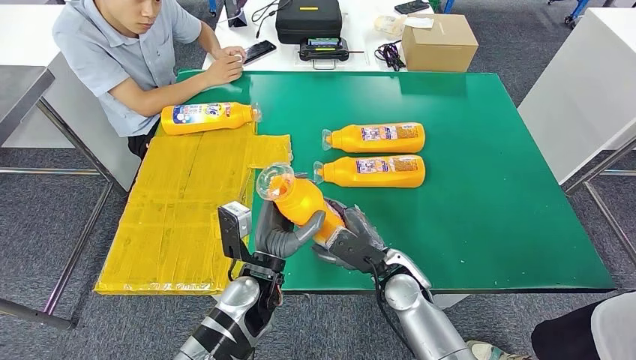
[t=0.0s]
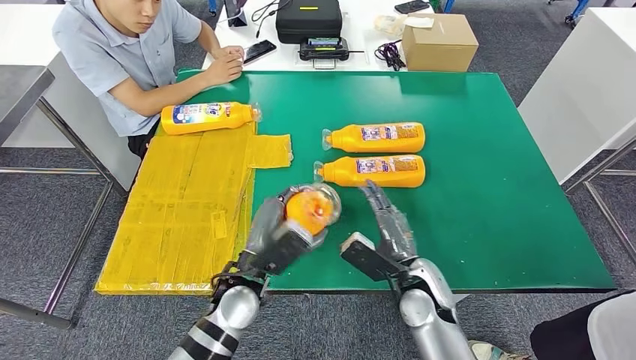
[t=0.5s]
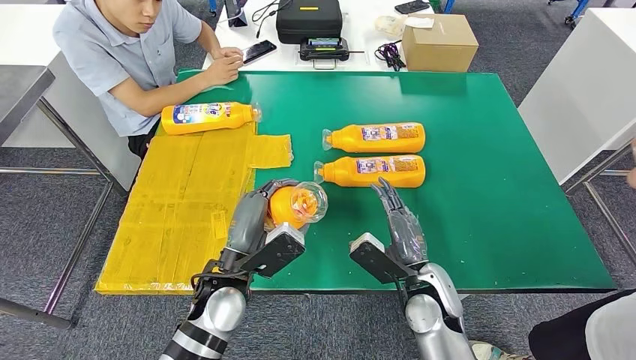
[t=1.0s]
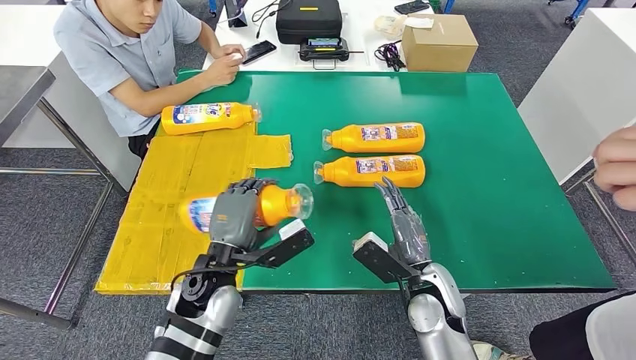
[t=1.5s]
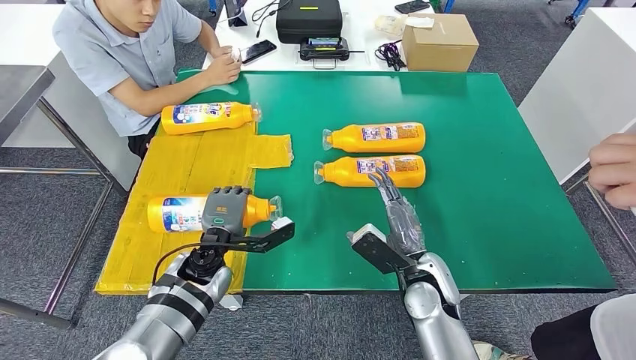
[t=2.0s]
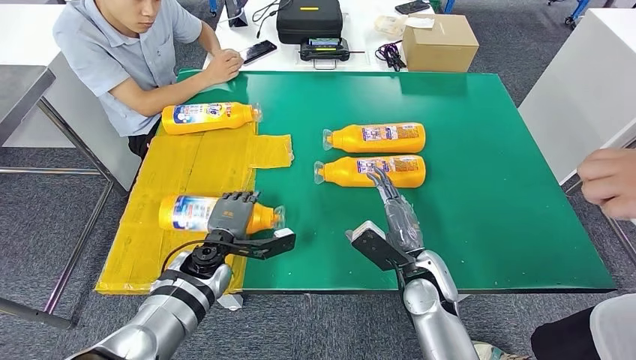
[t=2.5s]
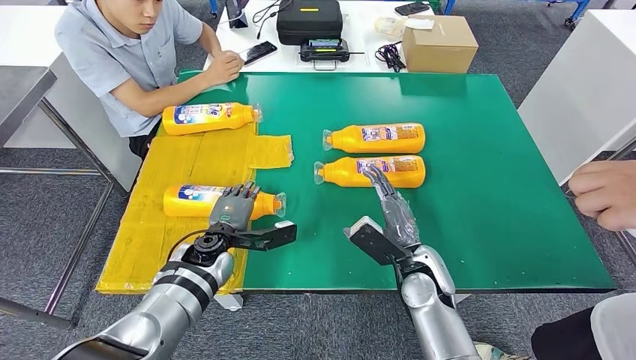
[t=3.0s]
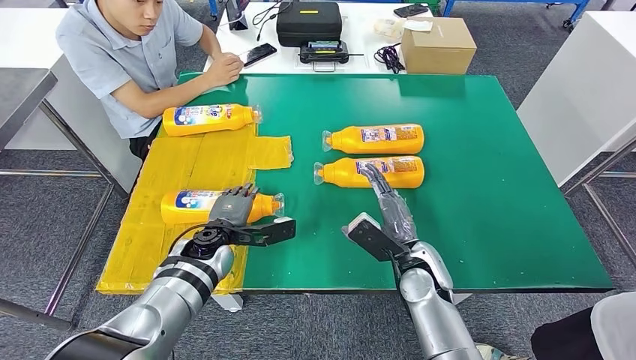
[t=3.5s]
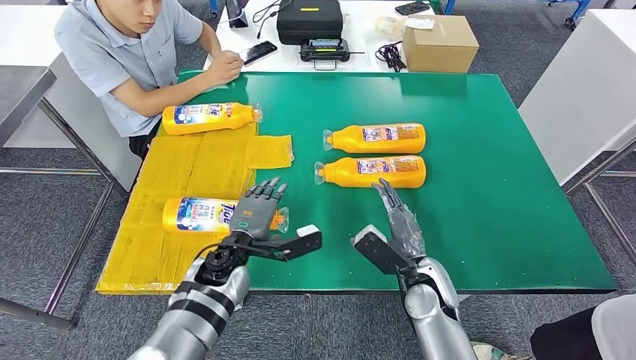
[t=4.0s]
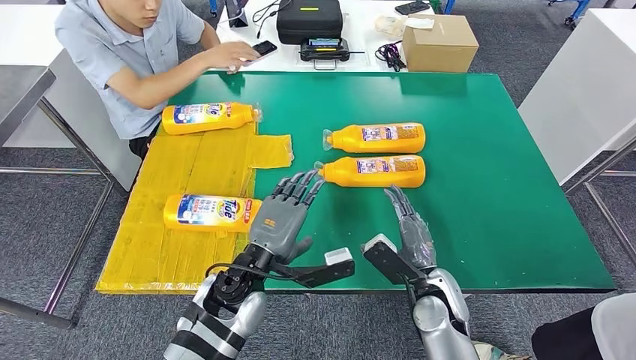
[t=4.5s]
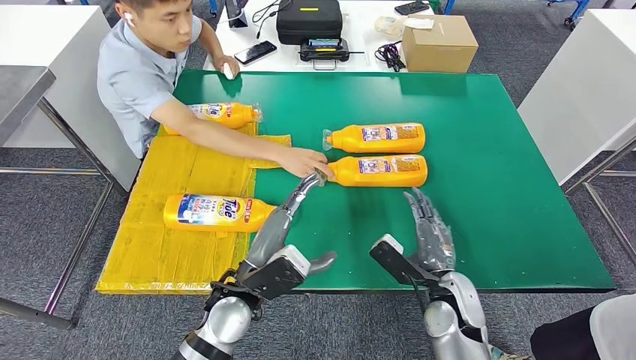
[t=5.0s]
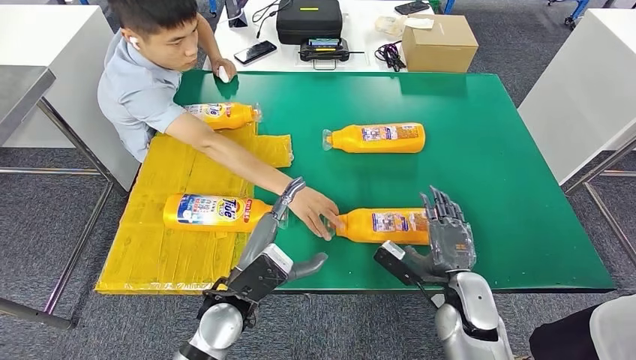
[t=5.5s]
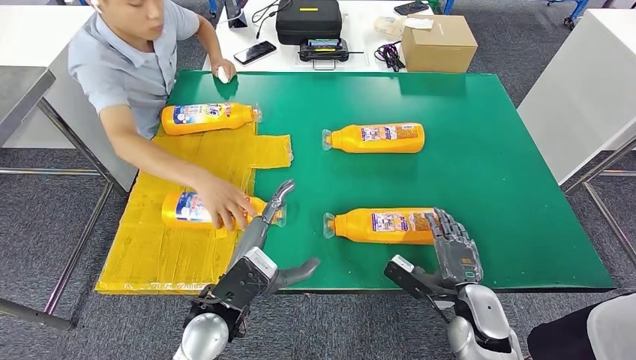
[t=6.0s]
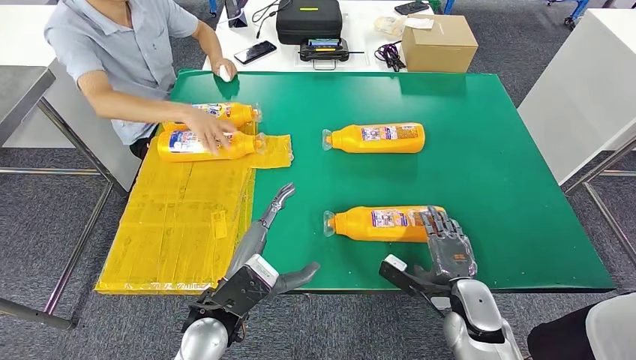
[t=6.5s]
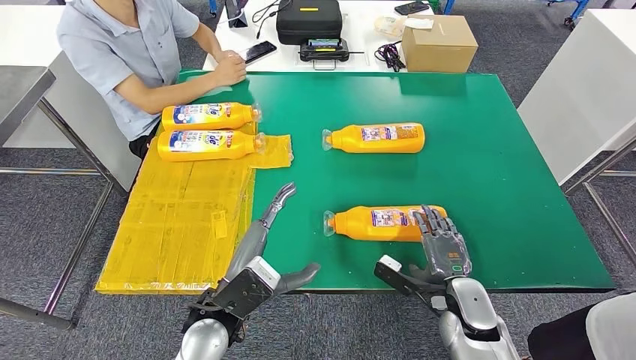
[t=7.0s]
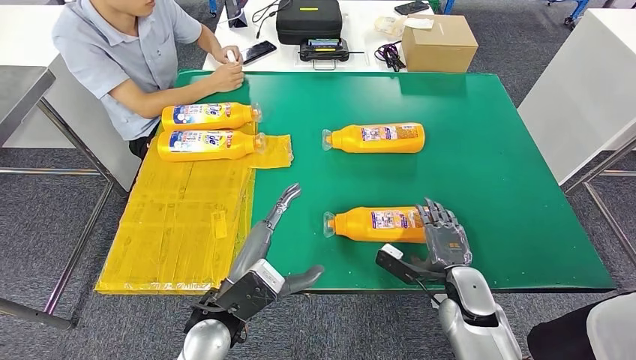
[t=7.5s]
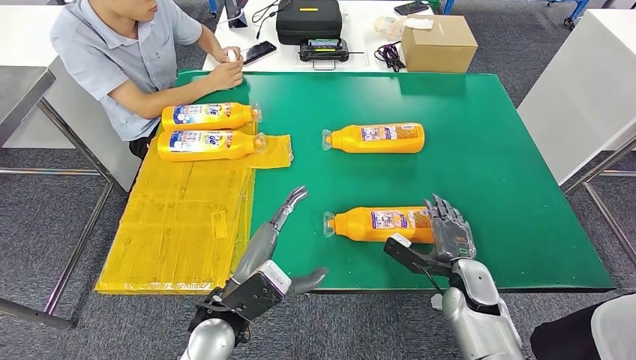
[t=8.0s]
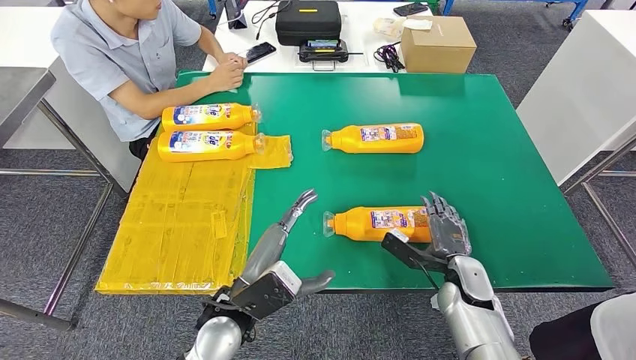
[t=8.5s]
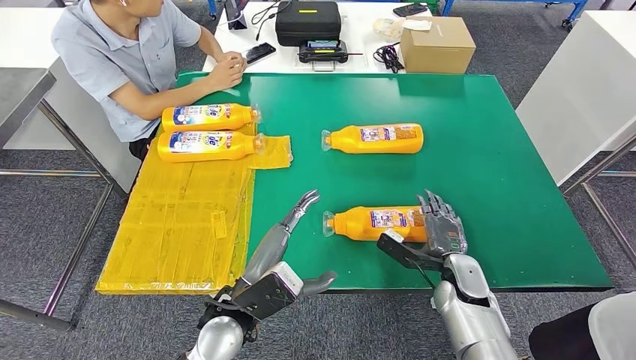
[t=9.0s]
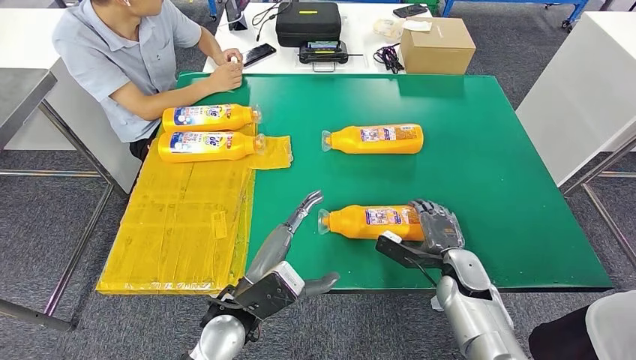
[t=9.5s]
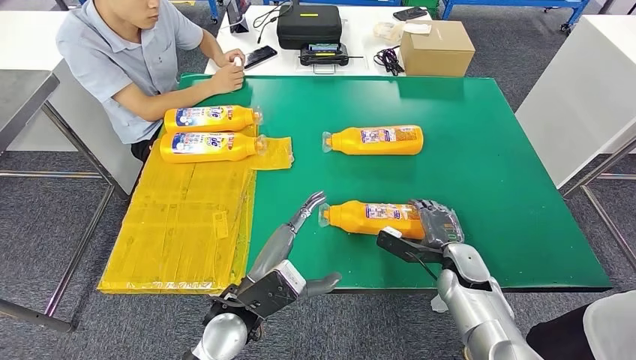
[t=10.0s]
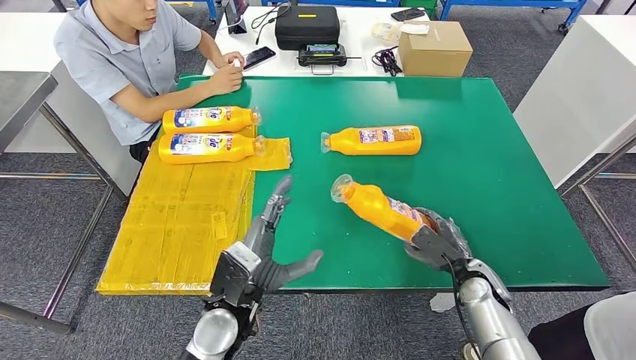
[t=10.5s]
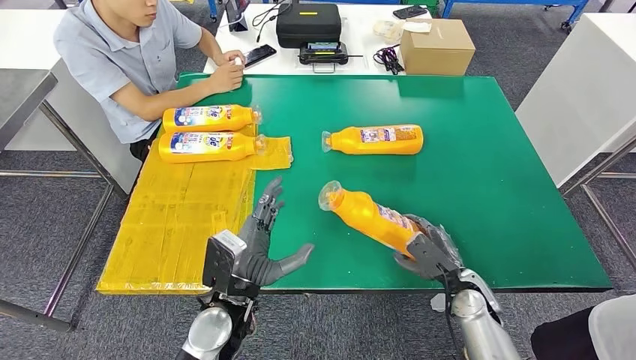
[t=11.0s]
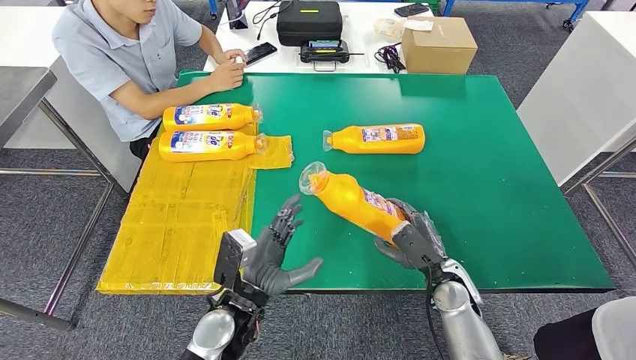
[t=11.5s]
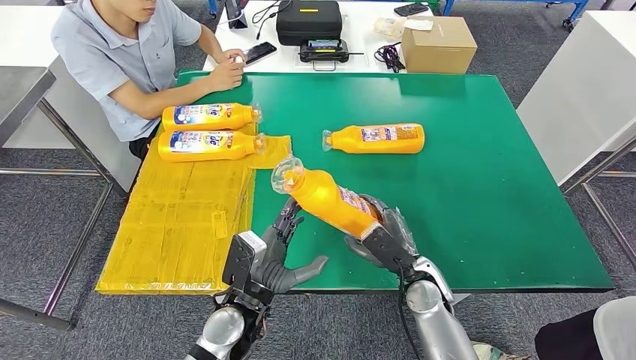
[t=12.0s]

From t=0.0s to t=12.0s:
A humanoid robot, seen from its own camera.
Step, from t=0.0s to t=4.0s: Flip the fast-moving consumer goods bottle to the front side.
From t=0.0s to t=2.0s: The left hand shifts some 10 cm to the left and forward.
From t=6.0s to t=8.0s: The right hand goes roughly 5 cm forward.
From t=8.0s to t=10.0s: There are only small adjustments of the hands.

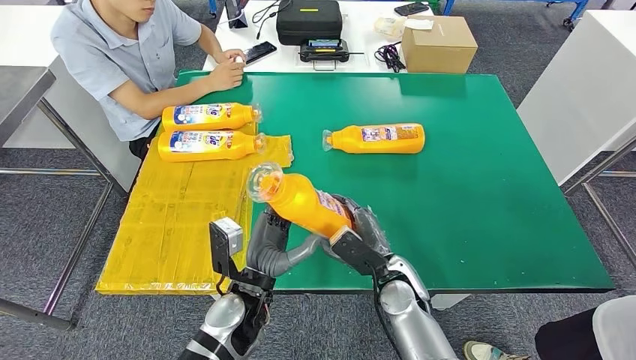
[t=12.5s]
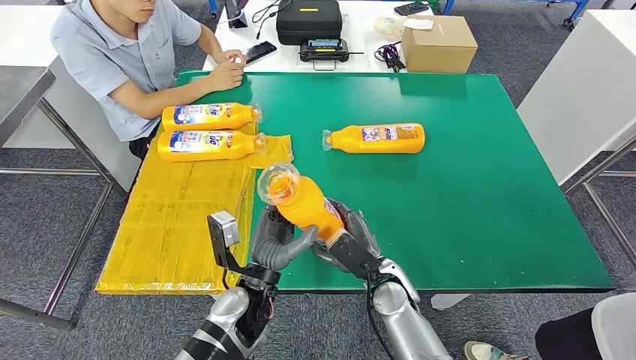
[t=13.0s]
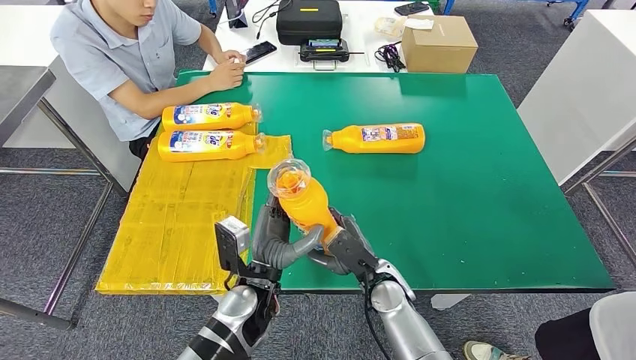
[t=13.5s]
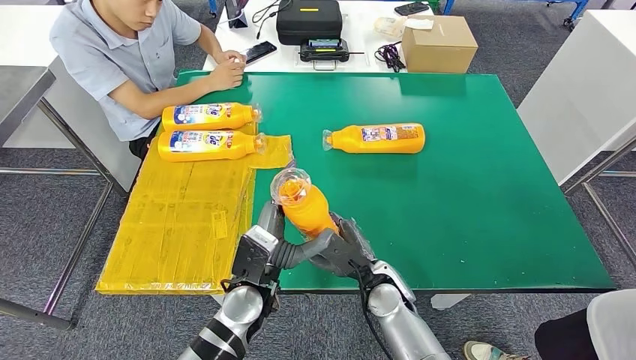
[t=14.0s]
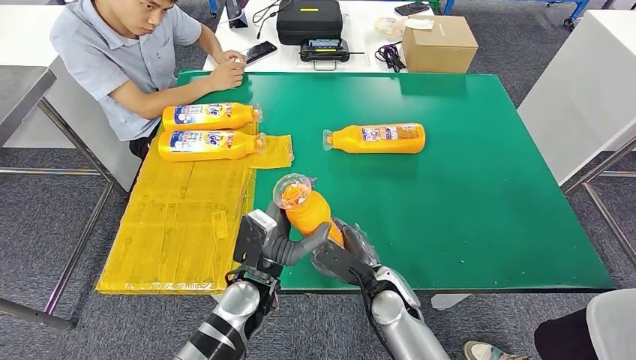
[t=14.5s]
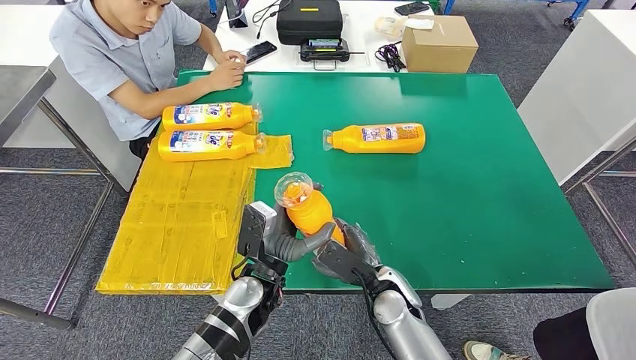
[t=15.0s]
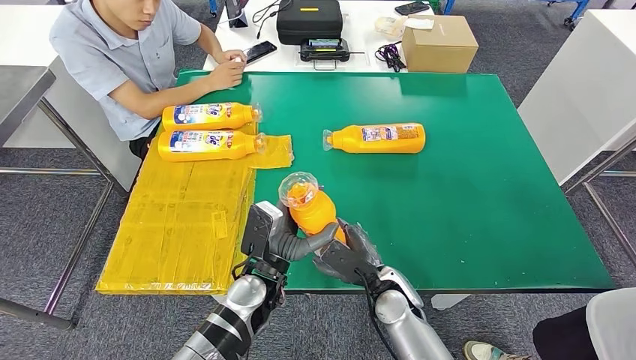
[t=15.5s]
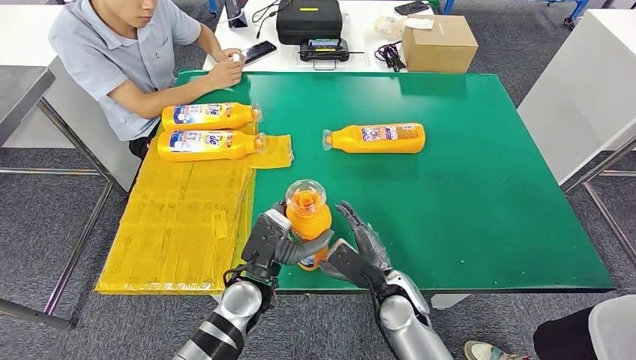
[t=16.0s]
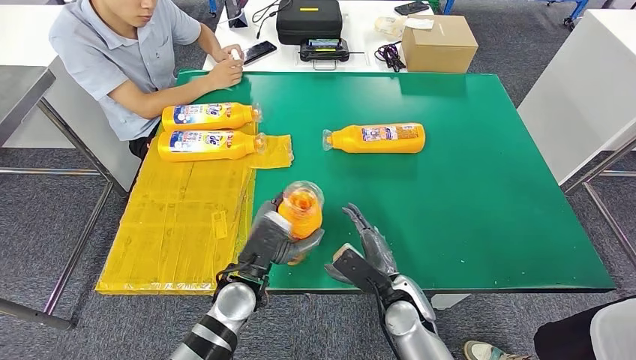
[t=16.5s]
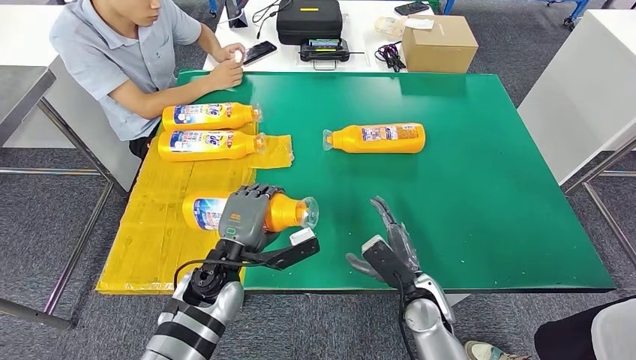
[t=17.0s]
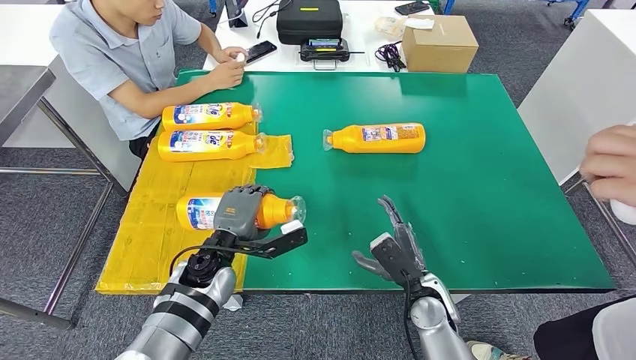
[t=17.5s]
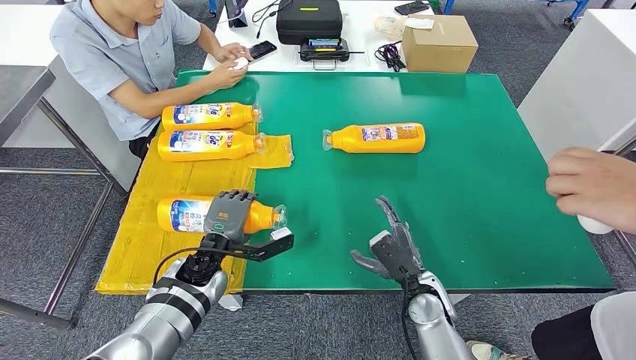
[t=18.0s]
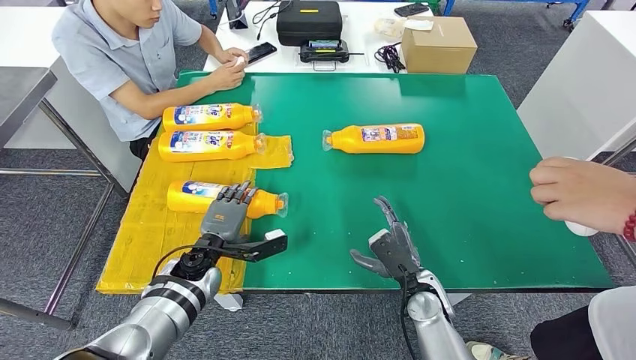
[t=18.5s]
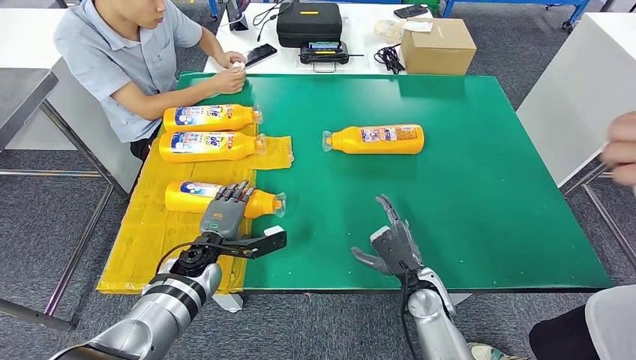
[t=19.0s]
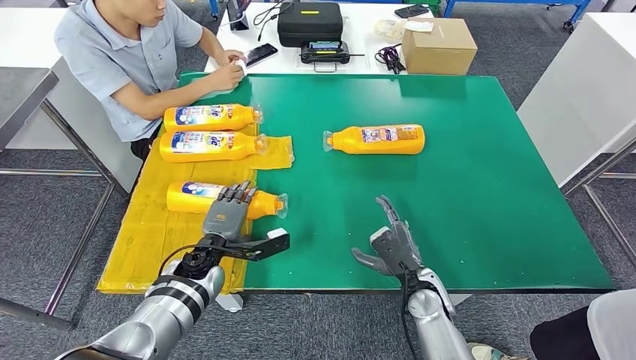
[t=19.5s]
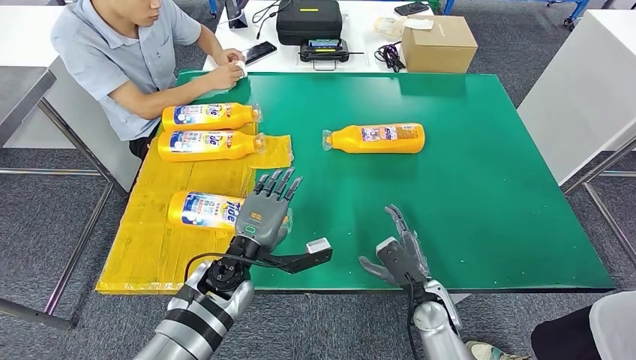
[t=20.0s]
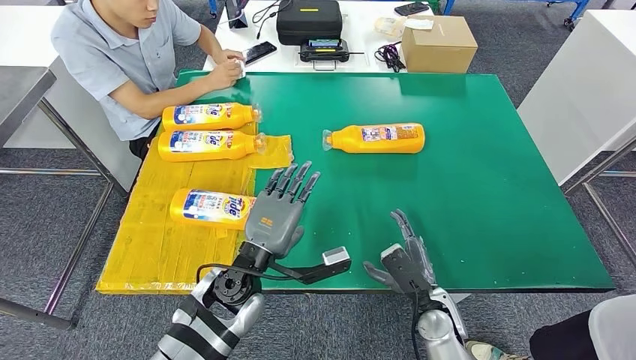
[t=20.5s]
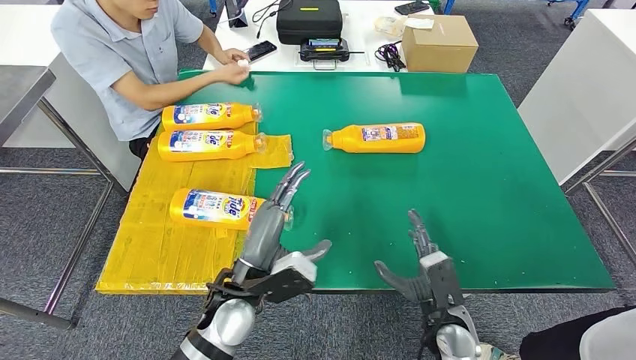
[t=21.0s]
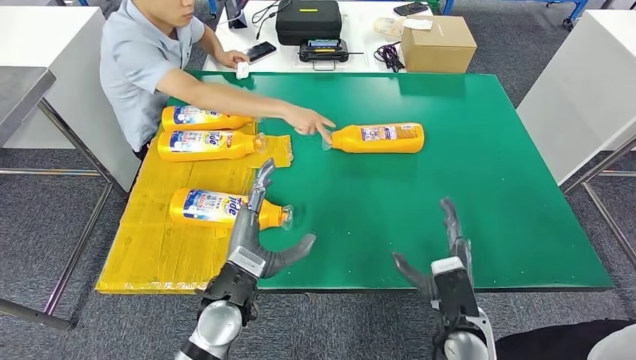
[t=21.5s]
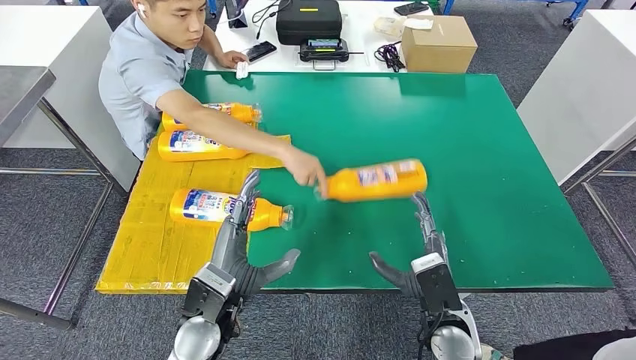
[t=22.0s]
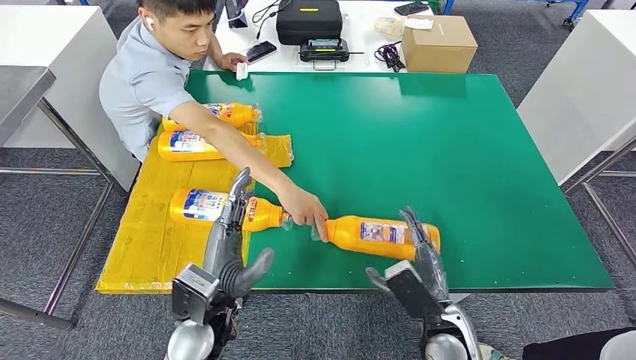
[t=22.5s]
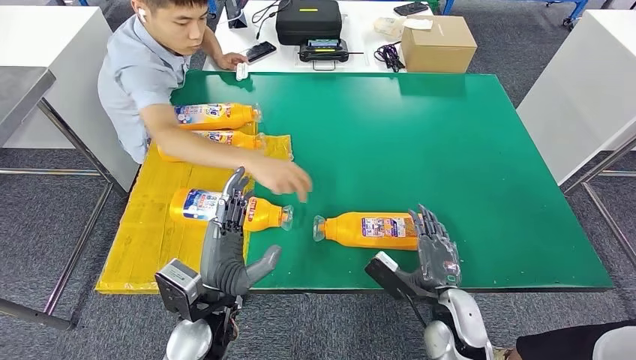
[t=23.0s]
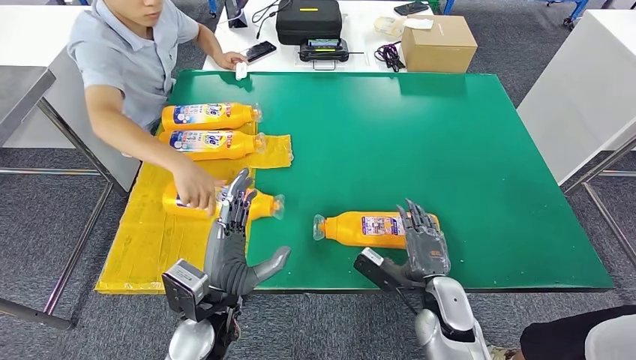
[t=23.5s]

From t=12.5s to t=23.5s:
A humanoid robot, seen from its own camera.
Step, from t=14.0s to t=18.5s: Flip the fast-moving consumer goods bottle to the front side.
From t=14.5s to t=16.0s: The hands stay close to where they were, moving slightly.
From t=16.0s to t=18.0s: The left hand shifts roughly 10 cm to the left and forward. The right hand travels to the right by about 5 cm.
From t=18.0s to t=20.0s: The left hand shifts about 5 cm to the right.
From t=20.0s to t=21.5s: The right hand goes approximately 10 cm upward and backward. The left hand moves backward, about 5 cm.
